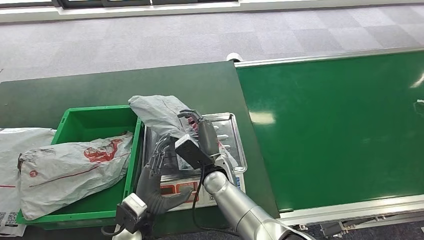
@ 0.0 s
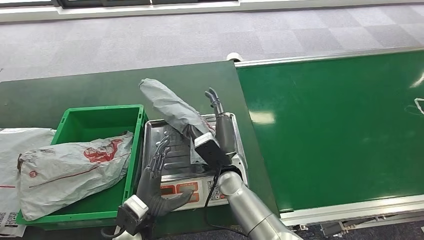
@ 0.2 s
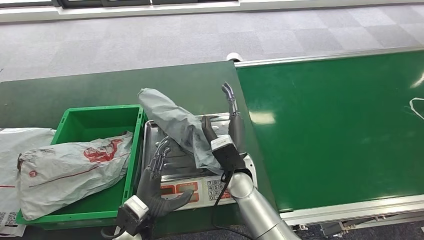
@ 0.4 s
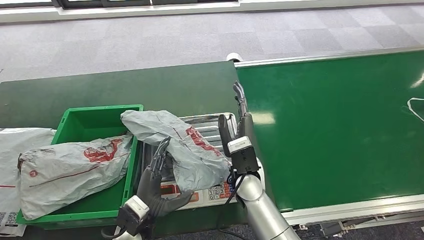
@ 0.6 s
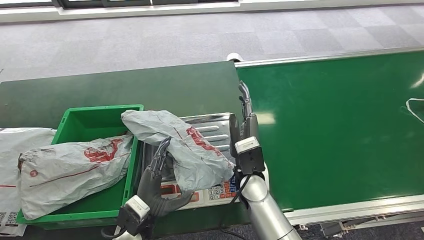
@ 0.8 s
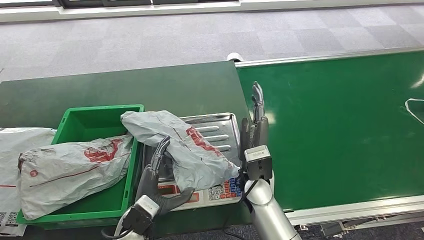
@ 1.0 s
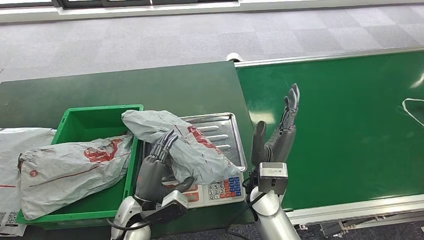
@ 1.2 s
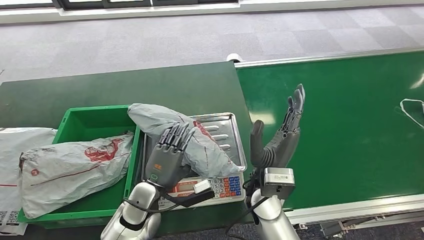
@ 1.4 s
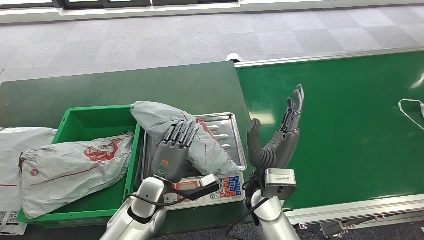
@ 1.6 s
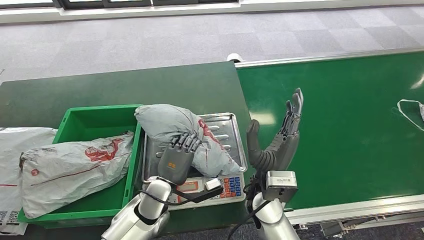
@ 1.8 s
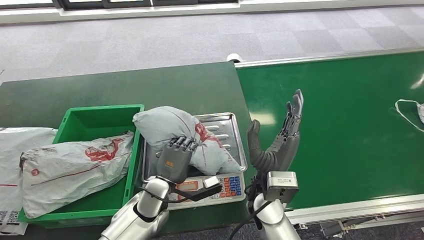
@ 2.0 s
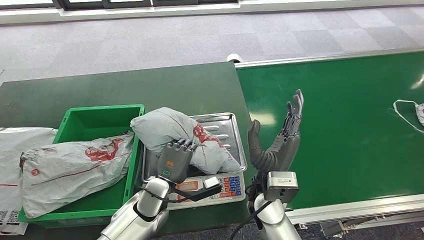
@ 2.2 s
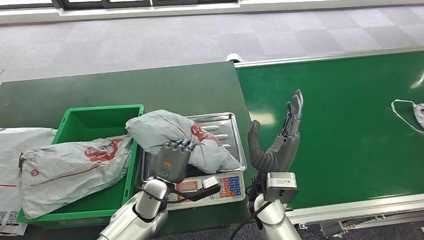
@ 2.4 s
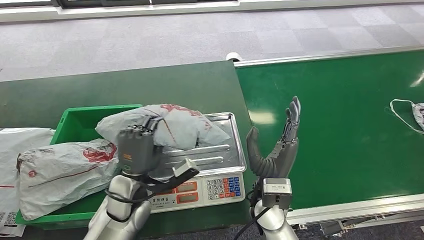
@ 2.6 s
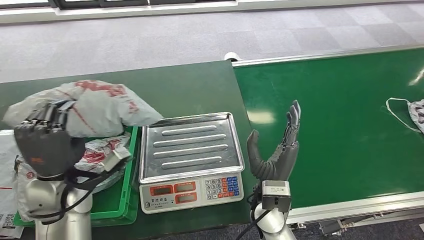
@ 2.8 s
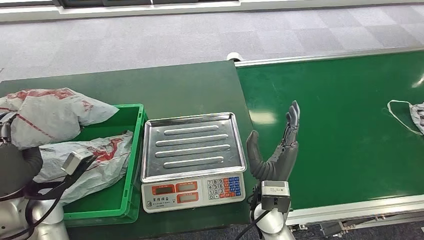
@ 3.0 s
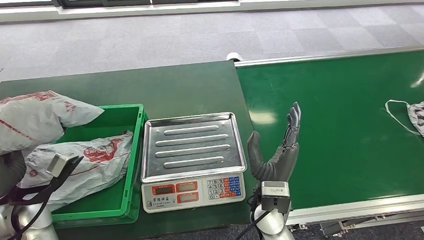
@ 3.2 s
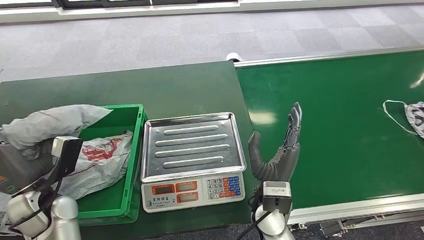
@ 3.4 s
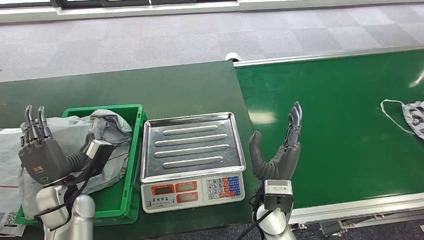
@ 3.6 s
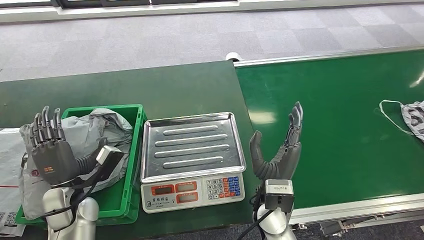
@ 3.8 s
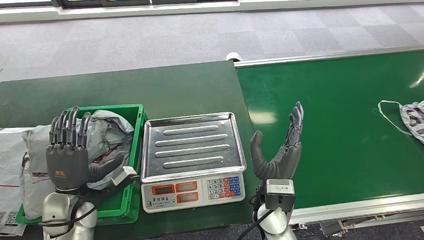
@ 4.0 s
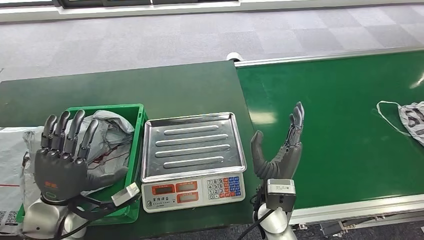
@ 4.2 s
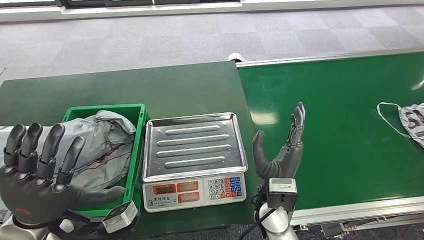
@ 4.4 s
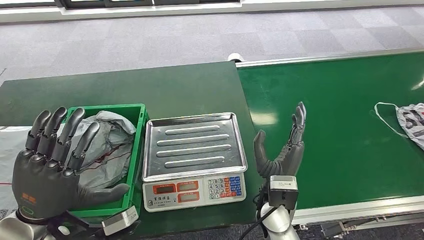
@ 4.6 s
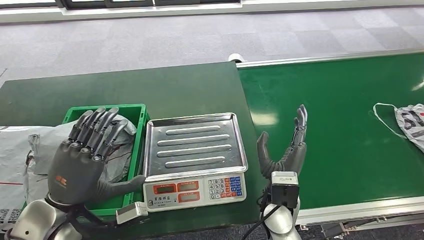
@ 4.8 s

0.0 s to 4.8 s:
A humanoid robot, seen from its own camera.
Task of the whole recording: Weigh the package on the weighing device and place it in the left basket.
Step, 0.6 to 3.0 s: Pick up the package from the inbound machine.
Step, 3.4 to 4.8 s: Place the package into the parcel locker.
0.0 to 1.6 s: The left hand is displaced forward by approximately 5 cm. Meanwhile the right hand travels to the right, upward and backward by some 15 cm.
